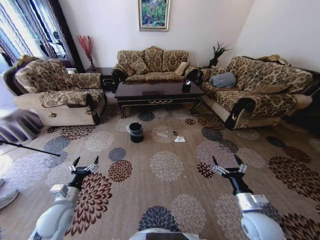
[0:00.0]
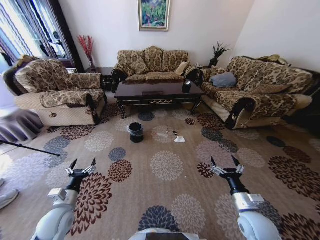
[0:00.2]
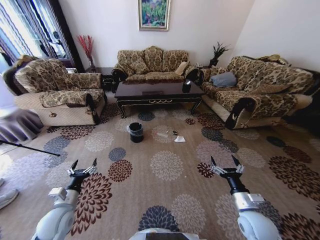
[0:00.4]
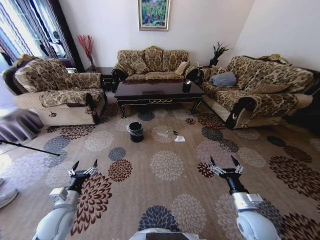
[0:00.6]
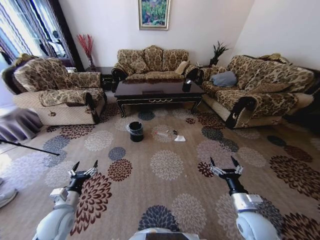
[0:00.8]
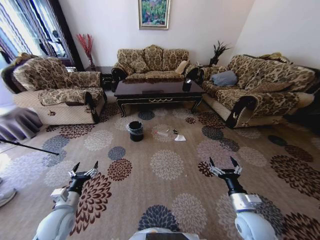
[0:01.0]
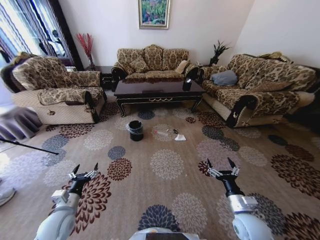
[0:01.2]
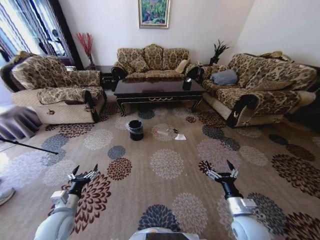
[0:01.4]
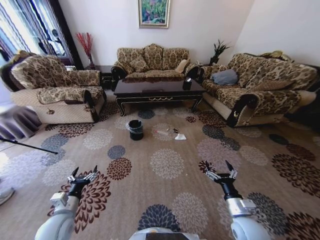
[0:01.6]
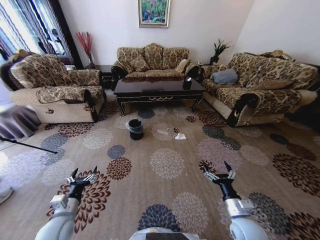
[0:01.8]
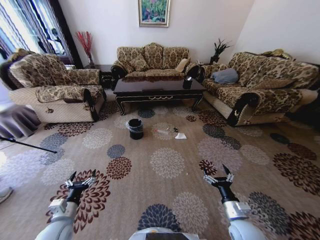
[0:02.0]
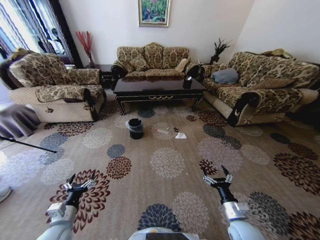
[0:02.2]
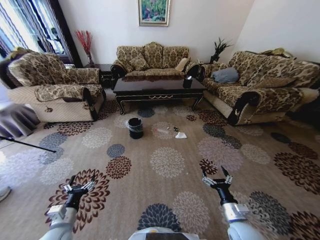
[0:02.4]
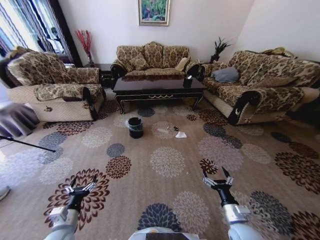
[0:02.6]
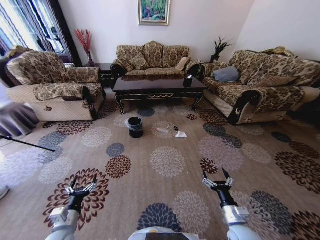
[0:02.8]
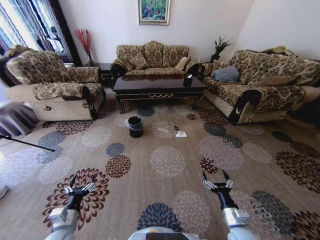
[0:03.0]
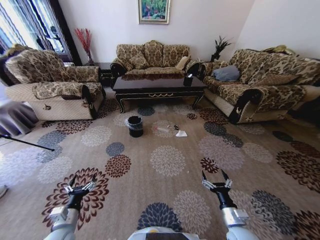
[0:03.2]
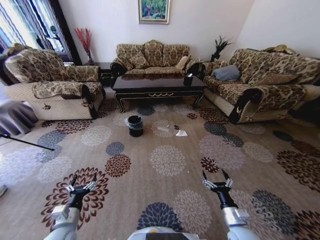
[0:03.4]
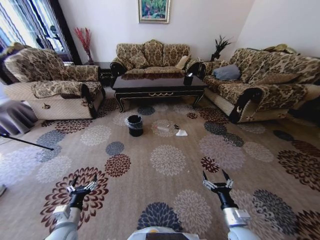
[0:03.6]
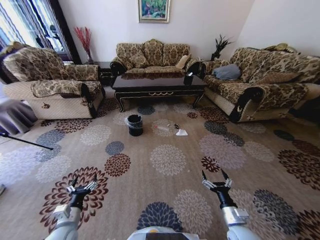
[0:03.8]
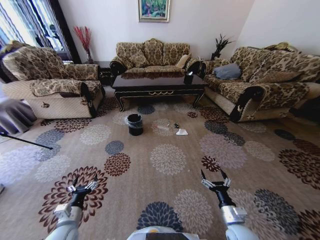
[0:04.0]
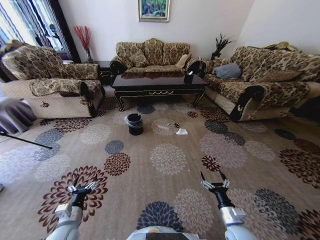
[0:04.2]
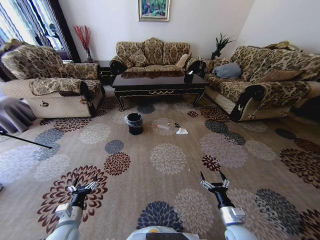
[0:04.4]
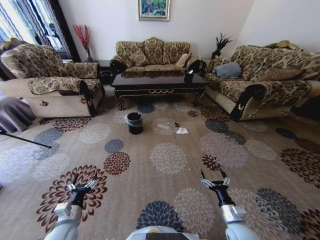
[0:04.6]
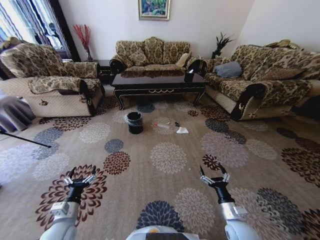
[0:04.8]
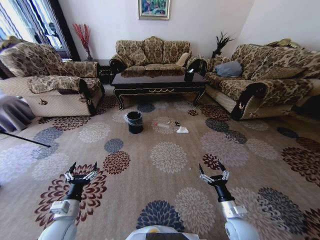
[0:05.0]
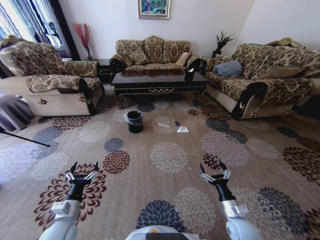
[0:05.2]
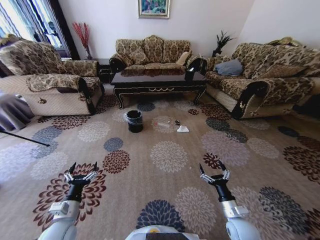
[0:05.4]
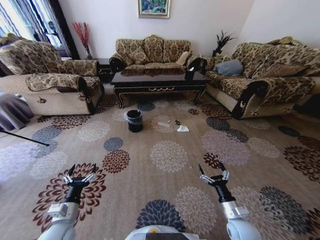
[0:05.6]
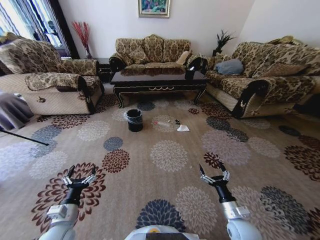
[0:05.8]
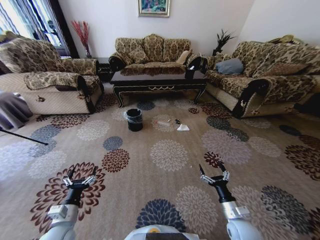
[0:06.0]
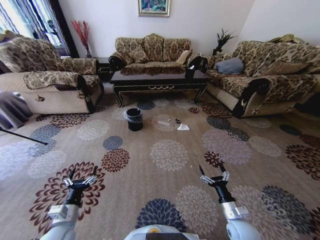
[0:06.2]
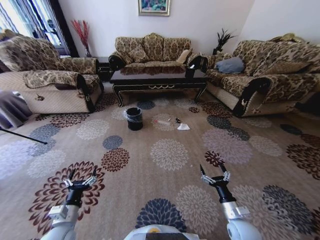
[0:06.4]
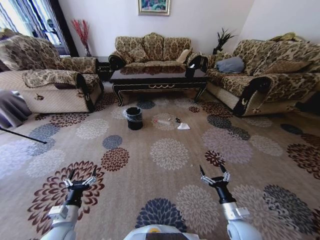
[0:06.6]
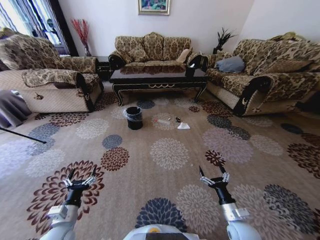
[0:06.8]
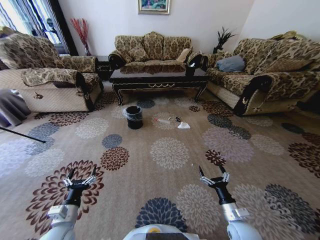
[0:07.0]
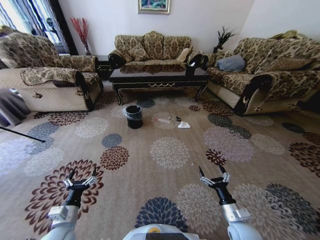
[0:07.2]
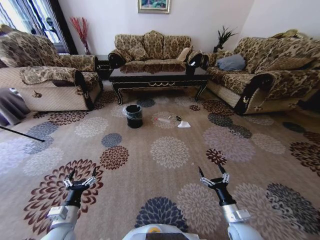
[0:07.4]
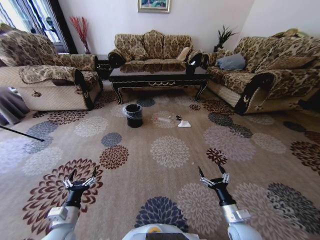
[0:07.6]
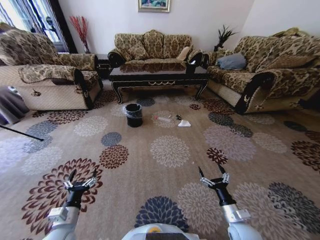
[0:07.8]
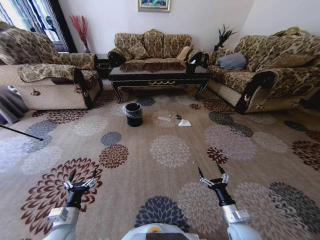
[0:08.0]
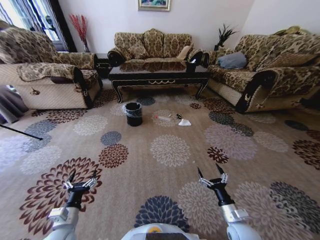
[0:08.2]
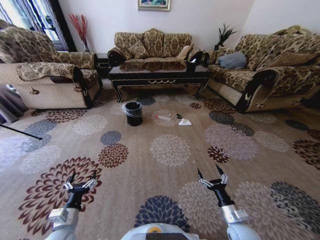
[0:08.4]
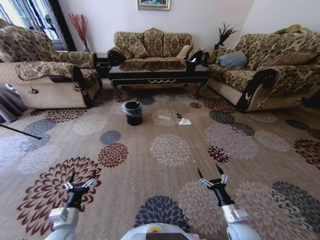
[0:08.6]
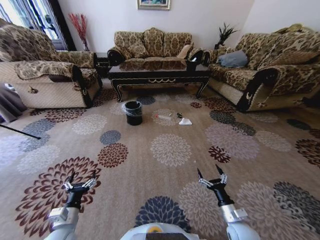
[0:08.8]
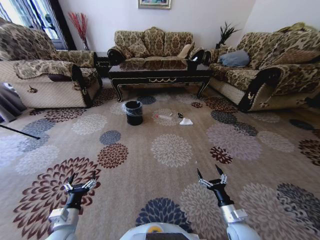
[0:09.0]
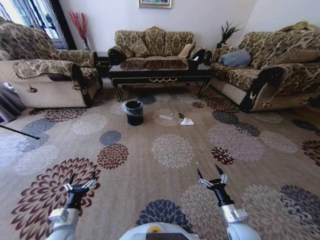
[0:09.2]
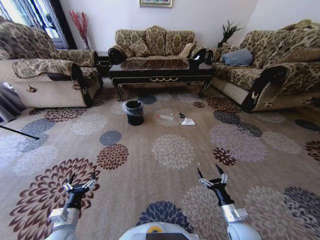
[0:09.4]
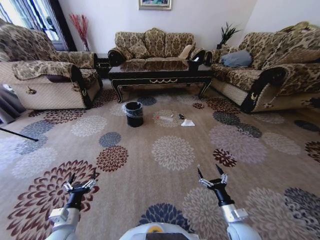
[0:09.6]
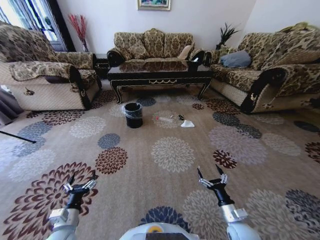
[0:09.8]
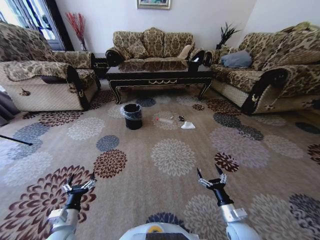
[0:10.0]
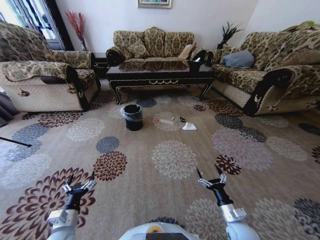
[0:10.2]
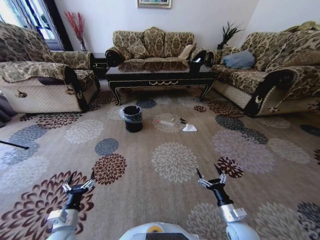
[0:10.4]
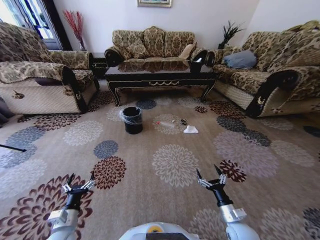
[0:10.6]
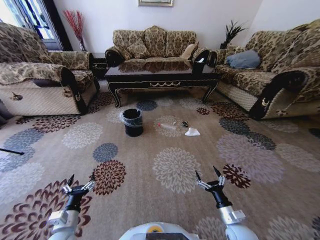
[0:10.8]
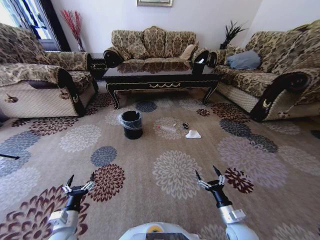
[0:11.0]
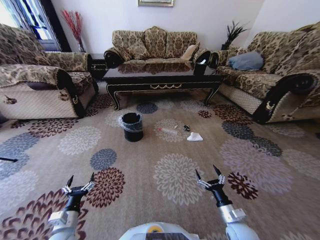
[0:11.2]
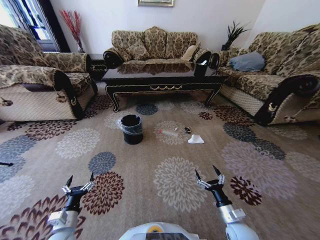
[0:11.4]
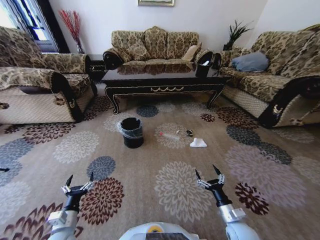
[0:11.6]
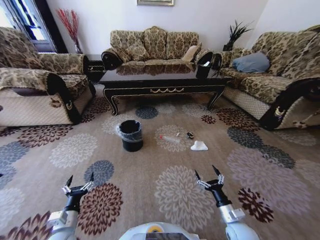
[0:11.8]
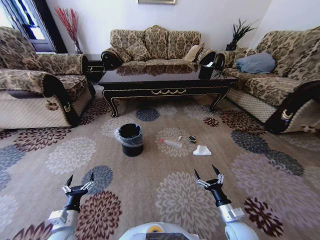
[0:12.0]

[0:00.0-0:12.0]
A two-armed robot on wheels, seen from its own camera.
Task of the whole recording: Move to the front of the table and pick up the trash from the floor, then place it into the trash bin.
0:01.6 to 0:03.0: The left gripper ends up about 5 cm from where it was.

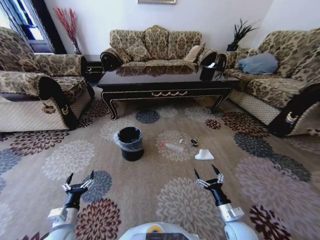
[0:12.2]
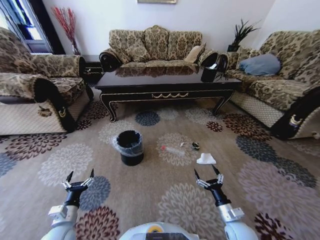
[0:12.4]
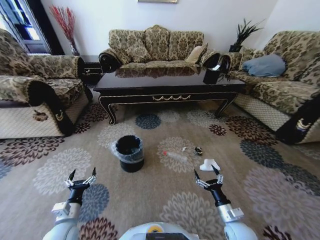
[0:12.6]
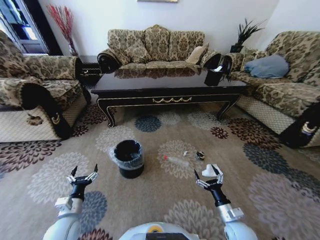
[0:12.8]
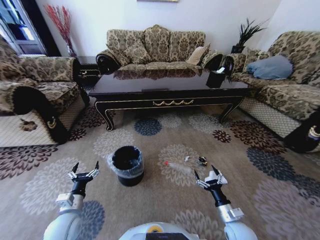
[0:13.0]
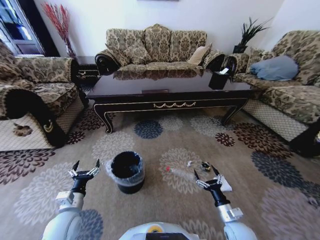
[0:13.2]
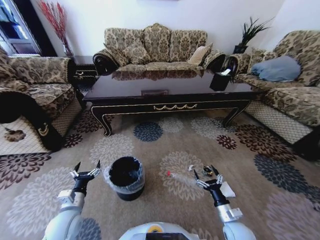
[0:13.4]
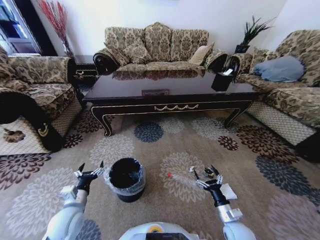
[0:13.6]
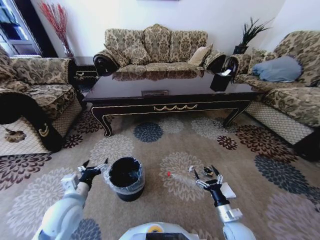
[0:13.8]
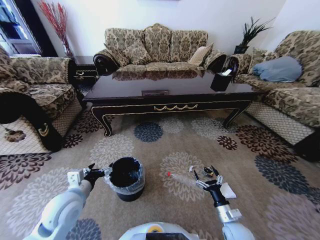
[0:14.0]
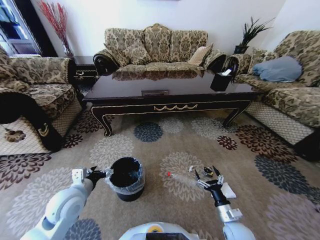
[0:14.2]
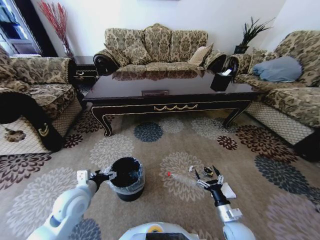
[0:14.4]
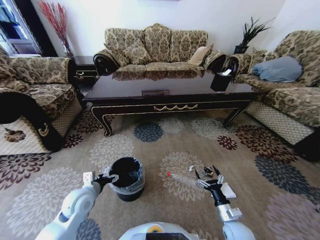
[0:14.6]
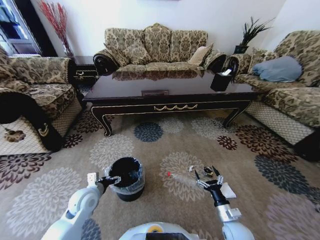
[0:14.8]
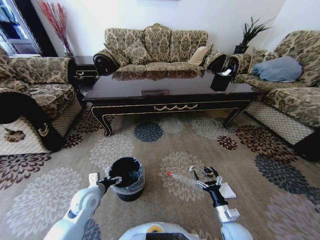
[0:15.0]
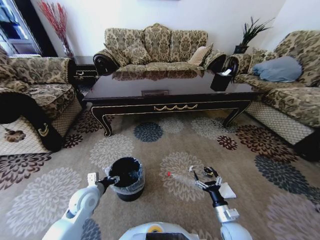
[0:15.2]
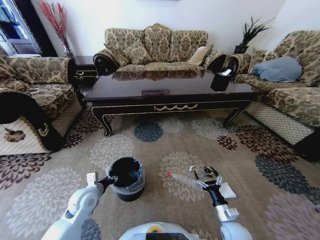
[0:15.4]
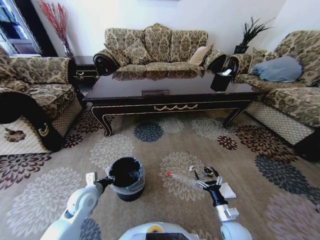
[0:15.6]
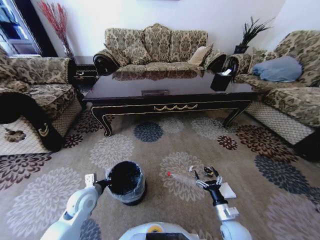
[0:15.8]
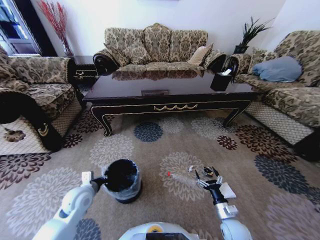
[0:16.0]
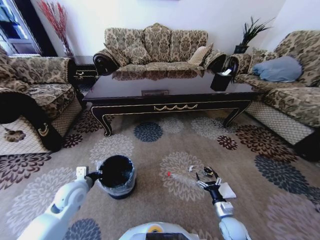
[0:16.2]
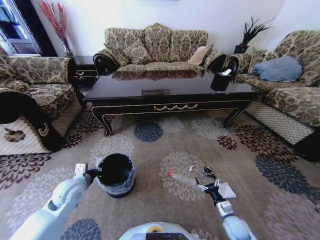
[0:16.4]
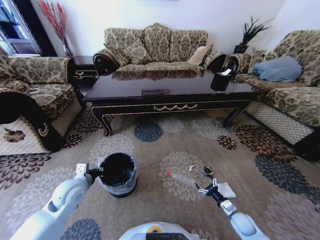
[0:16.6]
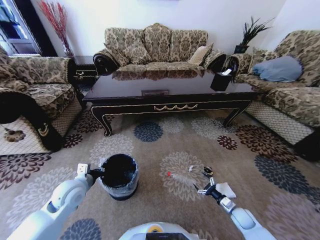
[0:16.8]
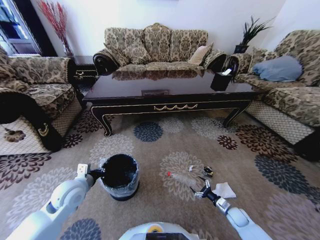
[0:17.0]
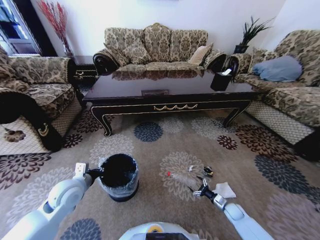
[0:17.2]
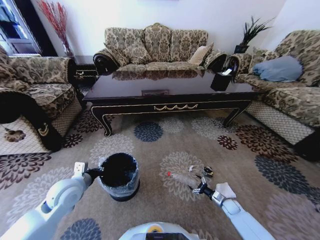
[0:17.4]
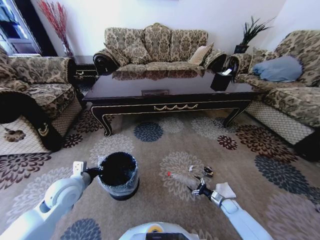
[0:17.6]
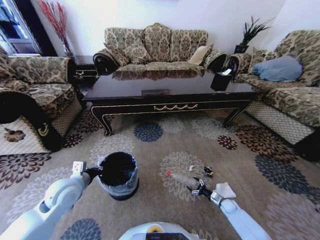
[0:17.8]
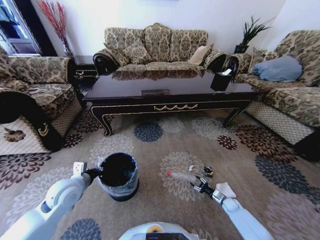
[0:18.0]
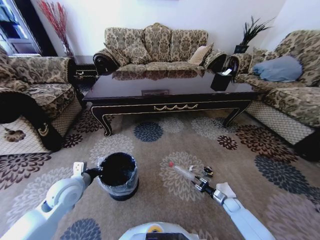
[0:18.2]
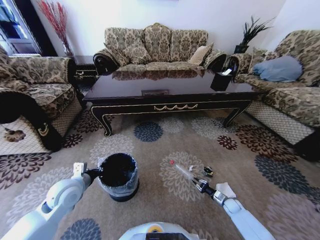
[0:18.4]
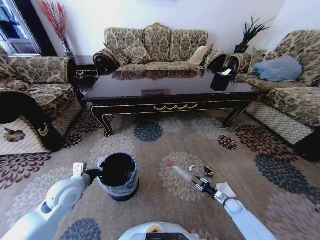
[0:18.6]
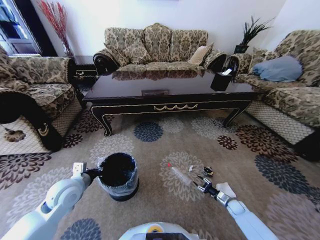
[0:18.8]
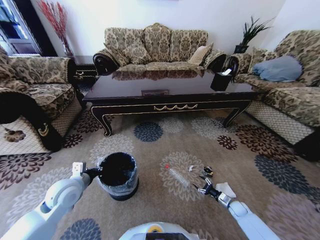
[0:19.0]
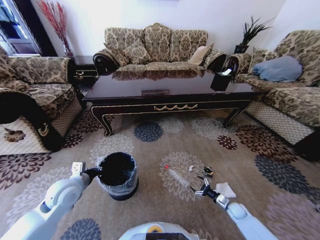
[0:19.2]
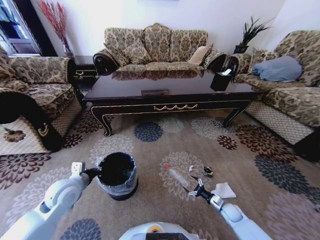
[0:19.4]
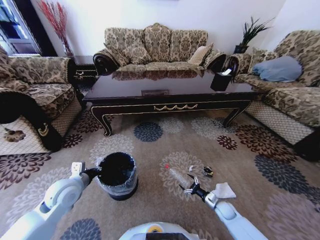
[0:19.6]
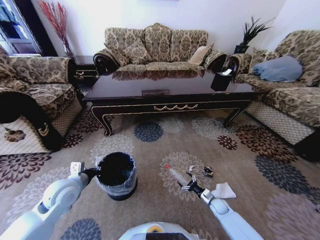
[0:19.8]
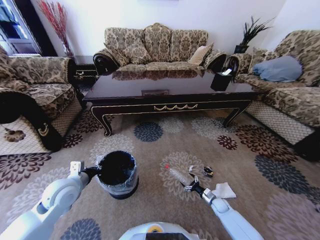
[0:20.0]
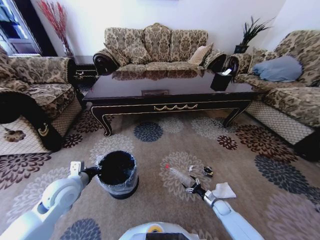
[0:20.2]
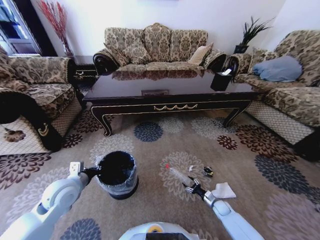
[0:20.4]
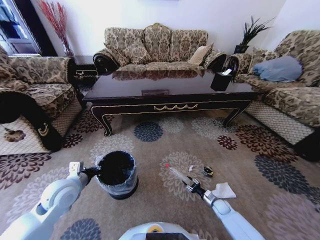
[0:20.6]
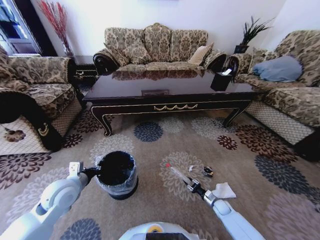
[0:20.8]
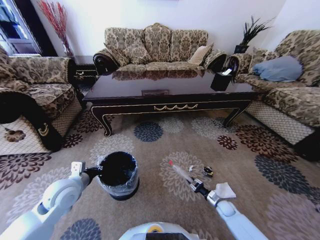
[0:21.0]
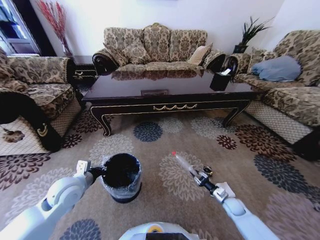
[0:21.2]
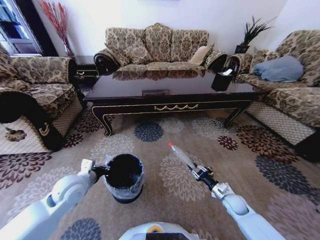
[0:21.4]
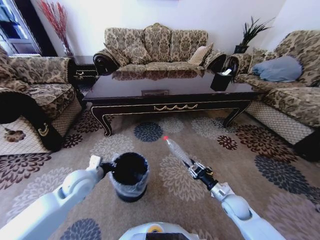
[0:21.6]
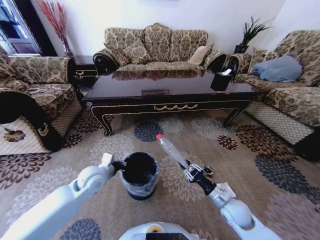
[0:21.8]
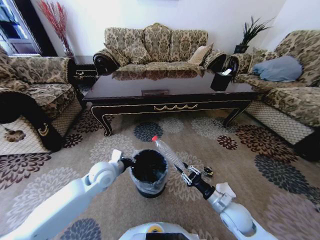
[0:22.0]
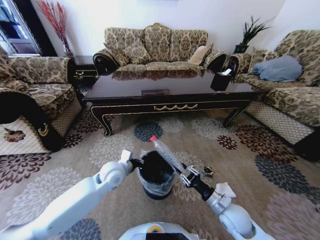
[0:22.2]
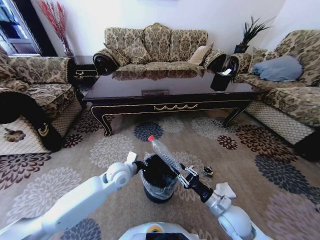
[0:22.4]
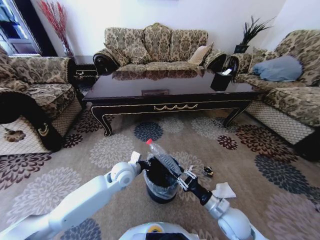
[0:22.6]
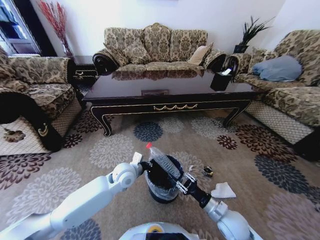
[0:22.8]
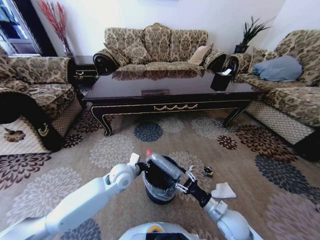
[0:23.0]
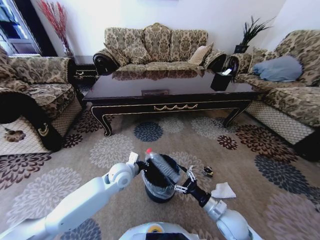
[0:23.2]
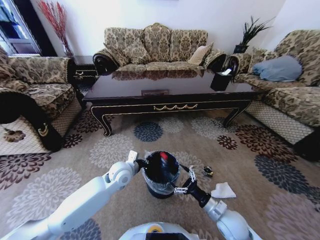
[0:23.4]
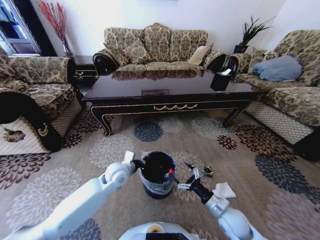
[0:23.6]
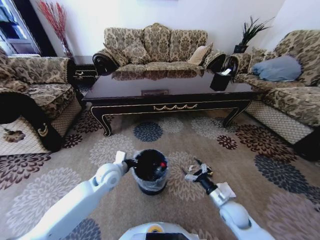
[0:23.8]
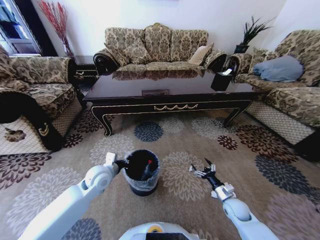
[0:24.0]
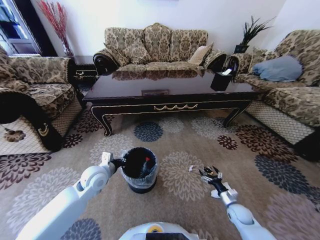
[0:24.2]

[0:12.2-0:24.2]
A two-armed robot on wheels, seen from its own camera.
Task of the whole recording: Move to the front of the table and pick up the trash from the floor, then place it into the trash bin.
0:12.2 to 0:13.8: The left gripper moves upward and forward, approximately 15 cm.
0:13.8 to 0:15.2: The left gripper is displaced downward and forward by approximately 10 cm.
0:15.2 to 0:16.6: The left gripper travels upward by roughly 5 cm, and closes its fingers. Meanwhile the right gripper heads to the right and downward, covering some 10 cm.
0:16.6 to 0:18.2: The right gripper travels forward and downward by about 10 cm, and closes its fingers.
0:18.2 to 0:19.8: The right gripper goes roughly 10 cm to the left, and opens.
0:19.8 to 0:21.2: The right gripper moves upward, approximately 5 cm, and closes up.
0:21.2 to 0:22.6: The left gripper goes approximately 20 cm to the right and forward. The right gripper goes some 25 cm upward, to the left and backward.
0:22.6 to 0:24.2: The left gripper moves to the left, some 10 cm. Meanwhile the right gripper heads downward and to the right, covering roughly 20 cm, and opens its fingers.
